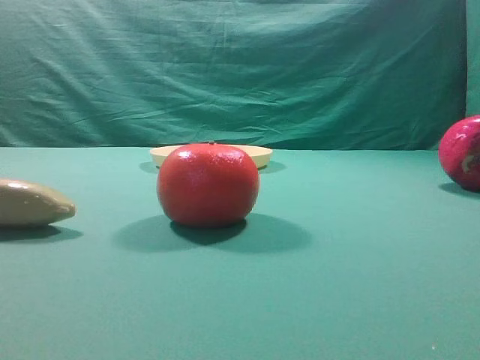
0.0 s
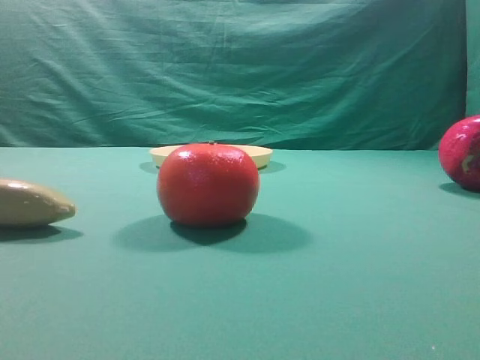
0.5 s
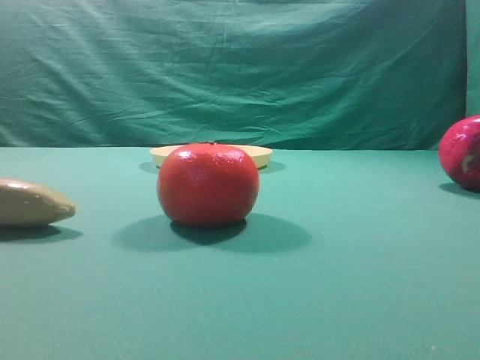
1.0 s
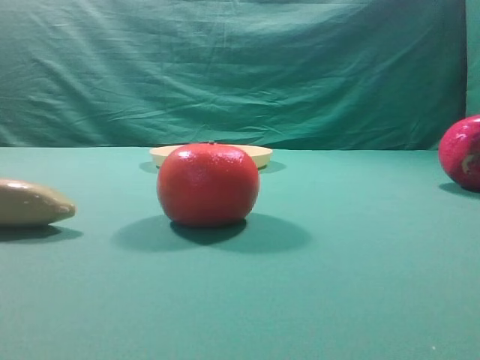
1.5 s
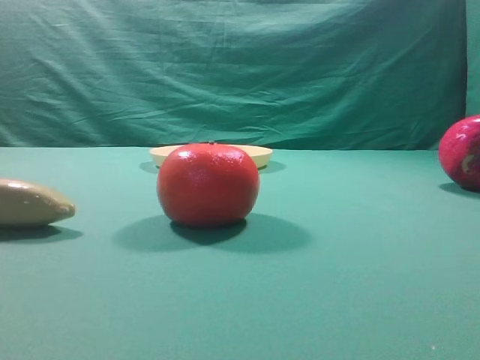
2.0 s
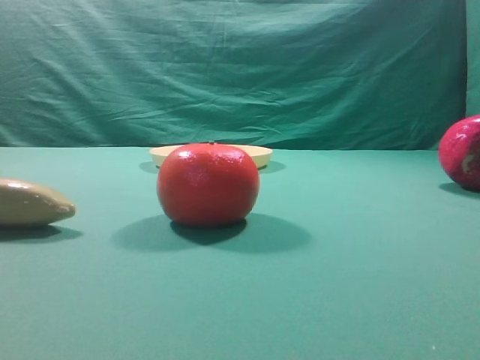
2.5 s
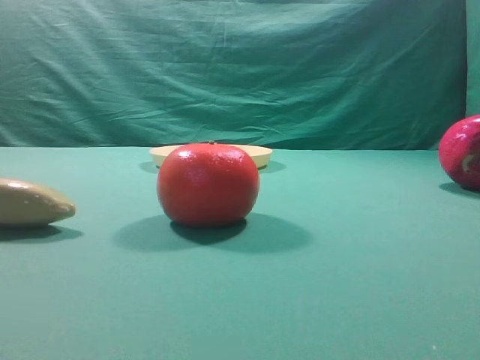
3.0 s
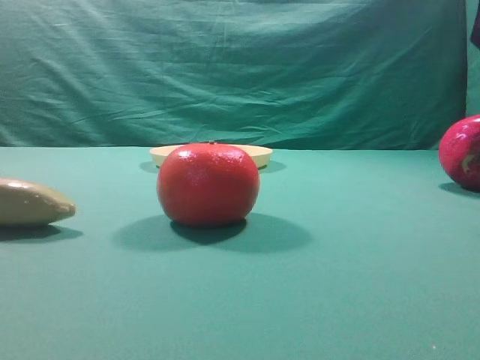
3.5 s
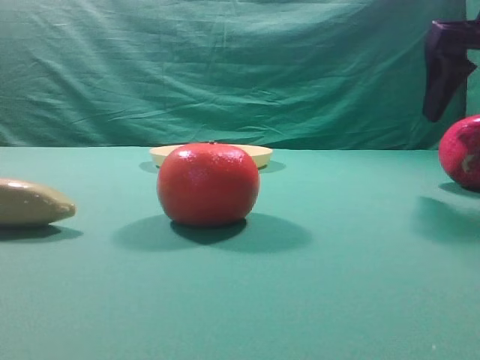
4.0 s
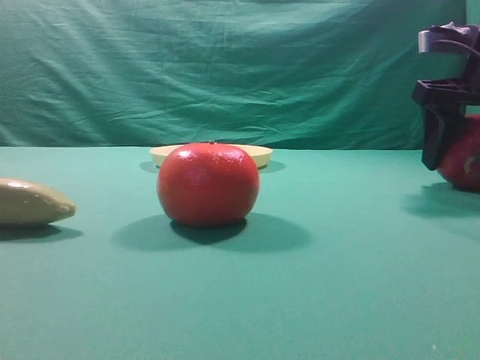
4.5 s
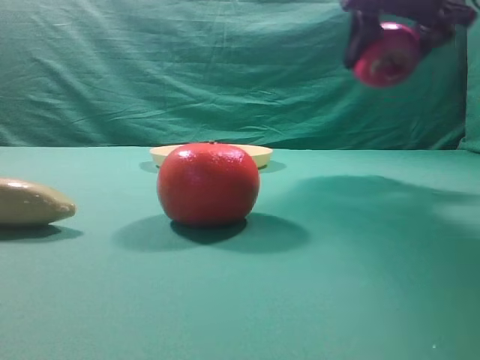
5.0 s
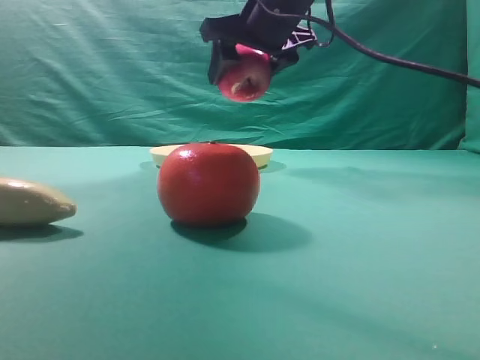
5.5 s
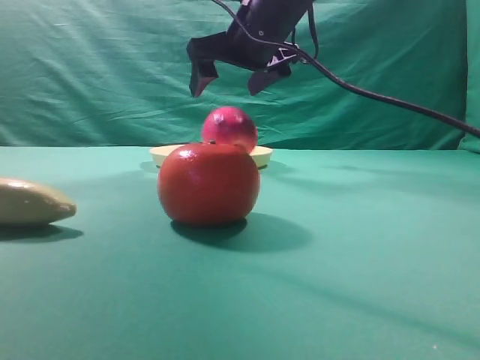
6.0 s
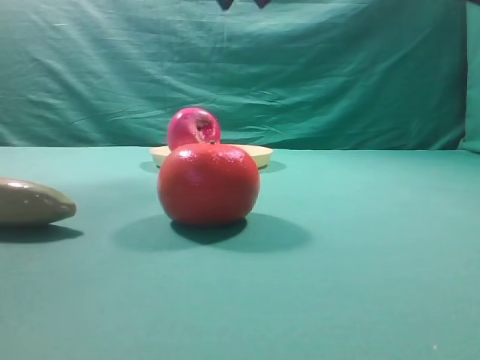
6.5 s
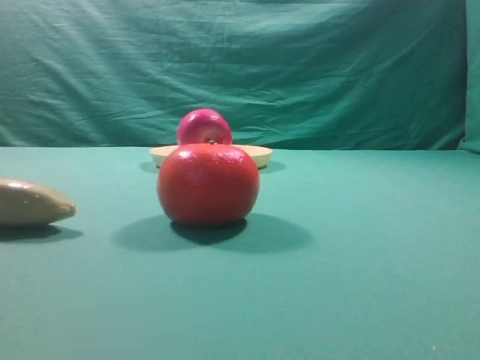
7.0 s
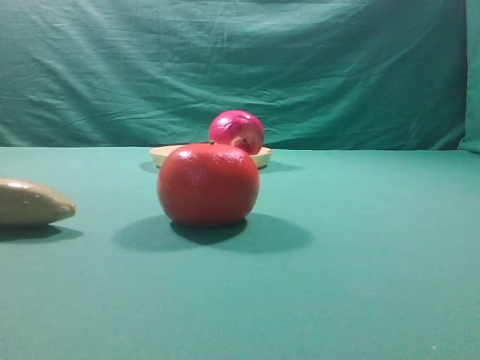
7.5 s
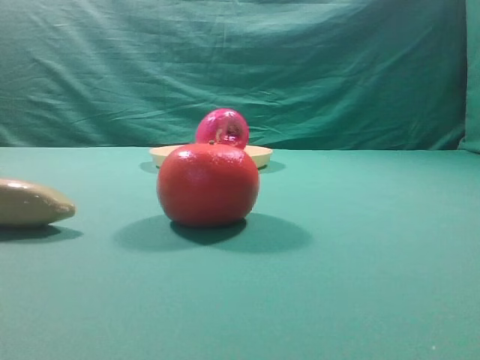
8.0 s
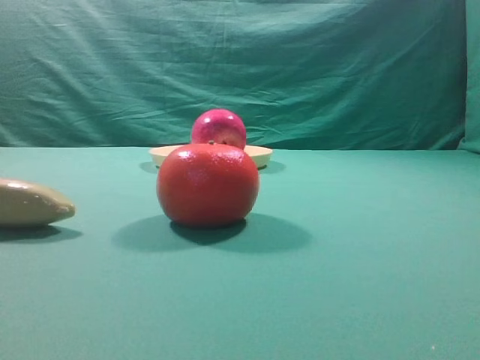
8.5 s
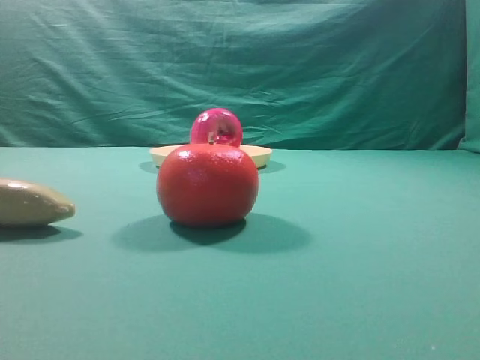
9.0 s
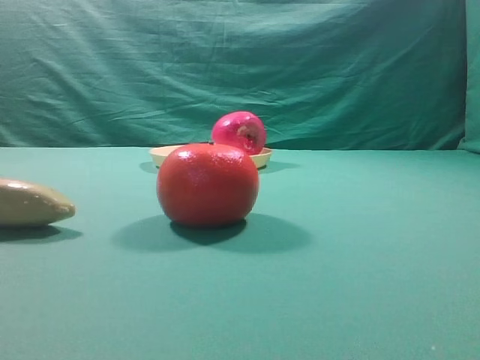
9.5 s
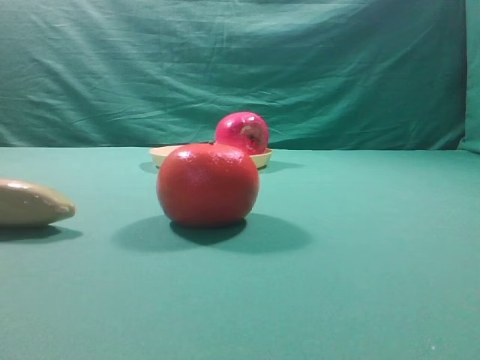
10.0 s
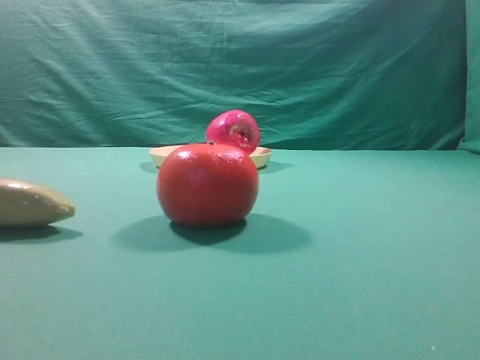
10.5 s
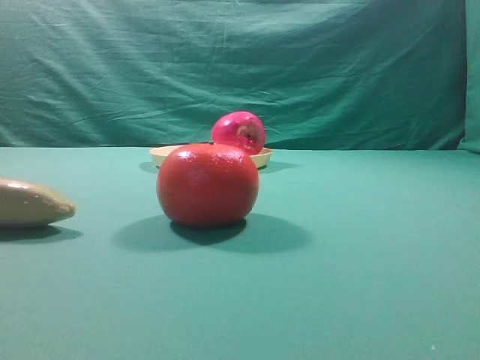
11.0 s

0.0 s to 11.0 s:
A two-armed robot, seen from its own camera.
Task of the whole recording: grasp the apple and place it into the yellow plate.
Step, 0.0 to 4.5 s: Grasp the fruit that can keep the doctor away.
Step, 5.0 to 6.0 s: Place the picked object into the yellow plate.
